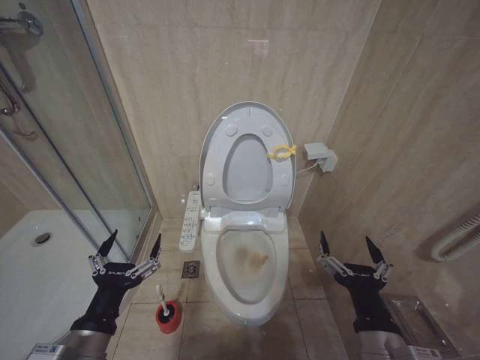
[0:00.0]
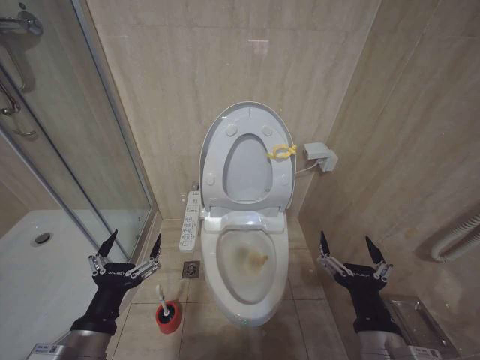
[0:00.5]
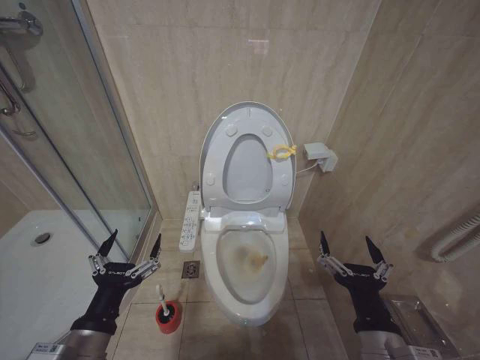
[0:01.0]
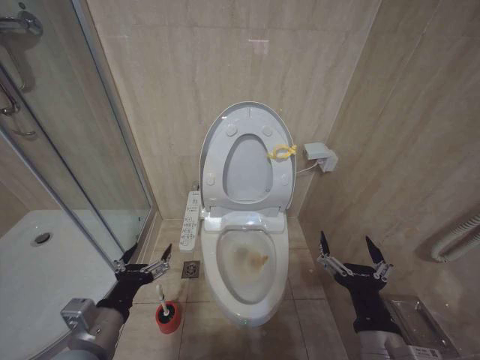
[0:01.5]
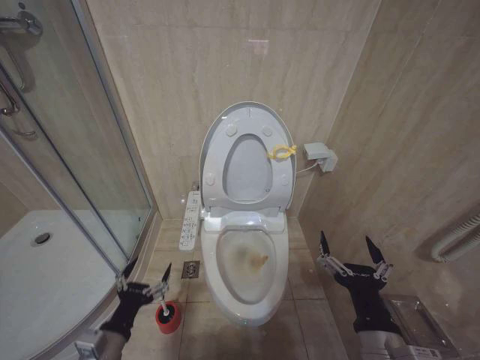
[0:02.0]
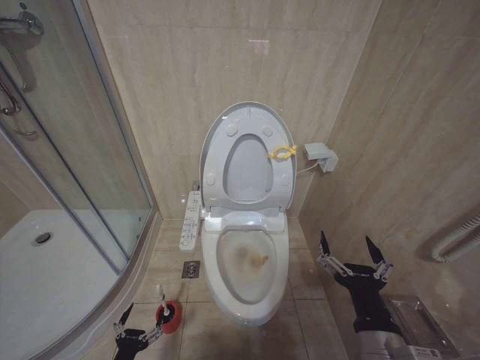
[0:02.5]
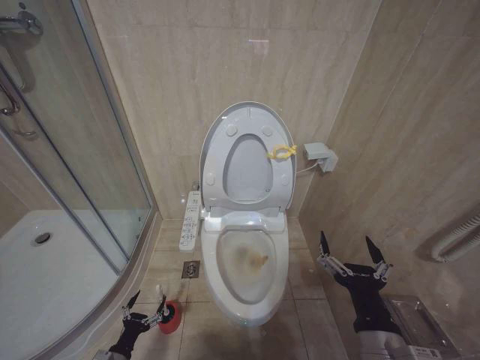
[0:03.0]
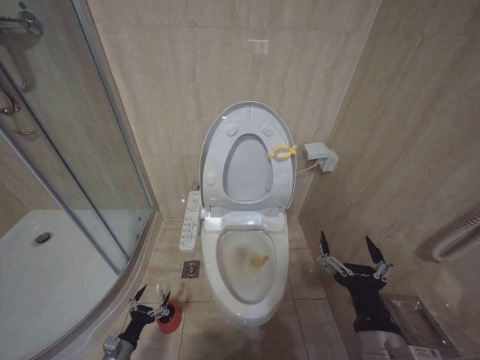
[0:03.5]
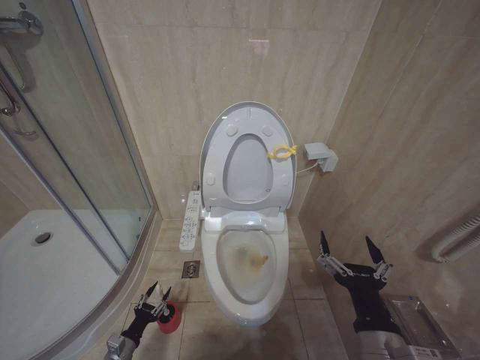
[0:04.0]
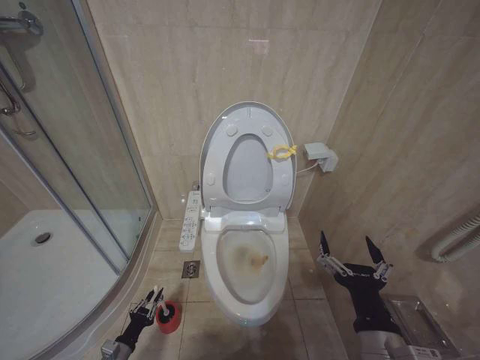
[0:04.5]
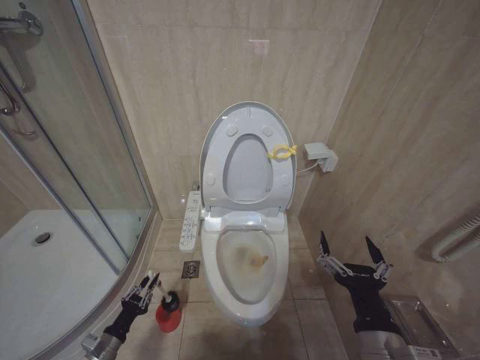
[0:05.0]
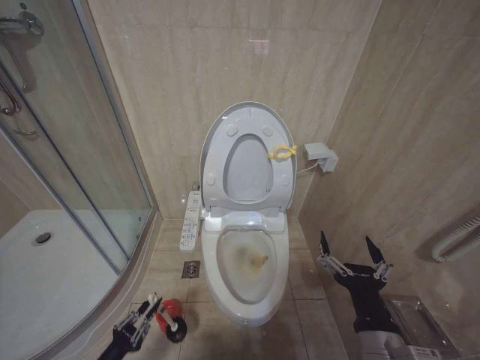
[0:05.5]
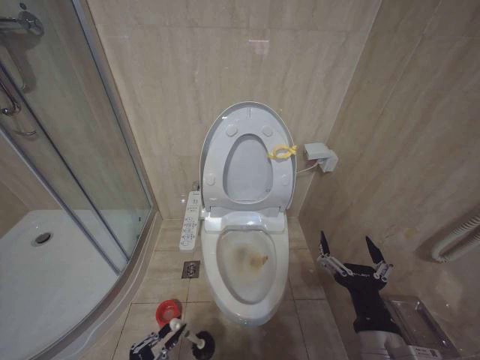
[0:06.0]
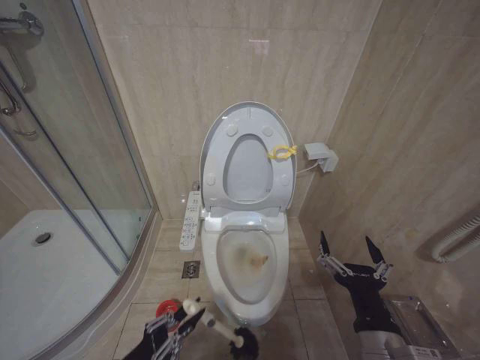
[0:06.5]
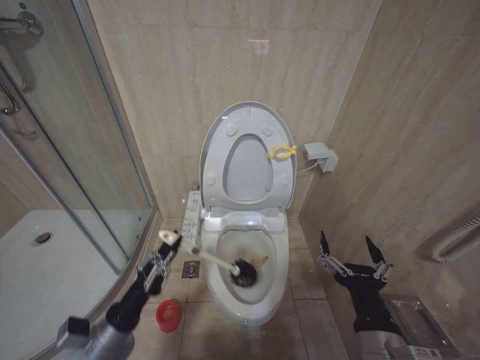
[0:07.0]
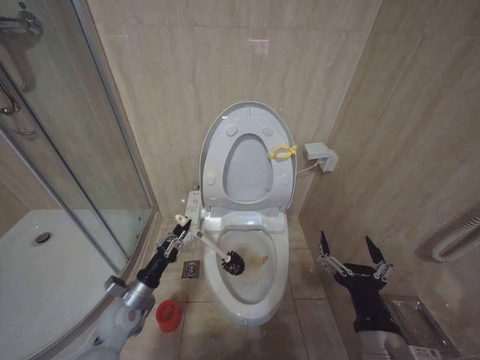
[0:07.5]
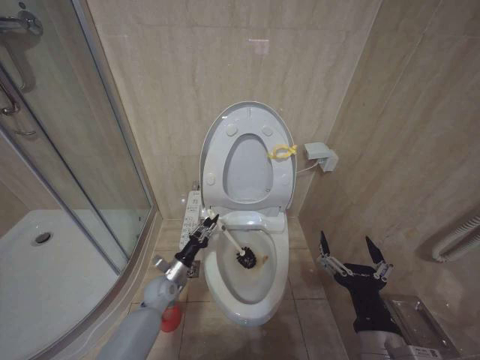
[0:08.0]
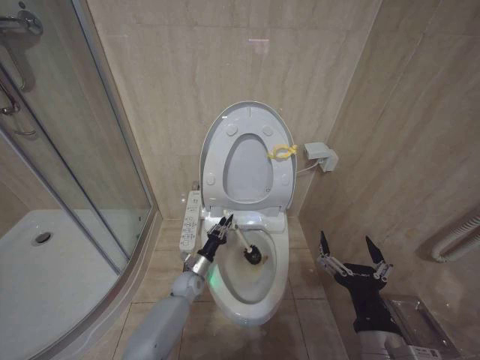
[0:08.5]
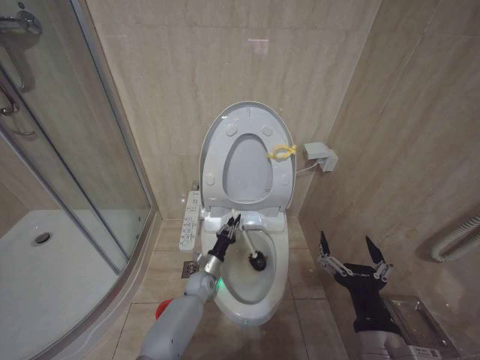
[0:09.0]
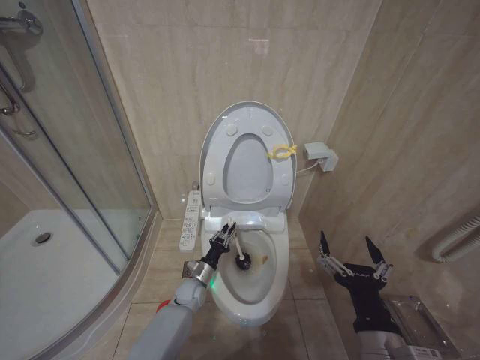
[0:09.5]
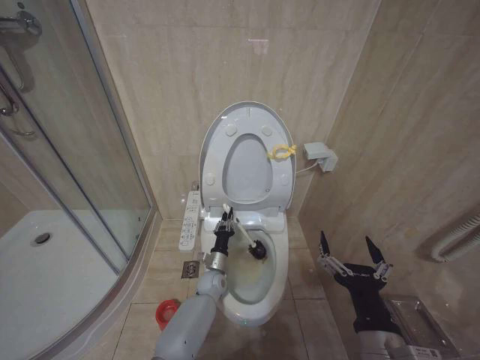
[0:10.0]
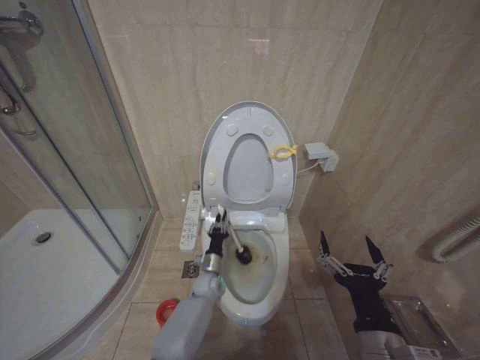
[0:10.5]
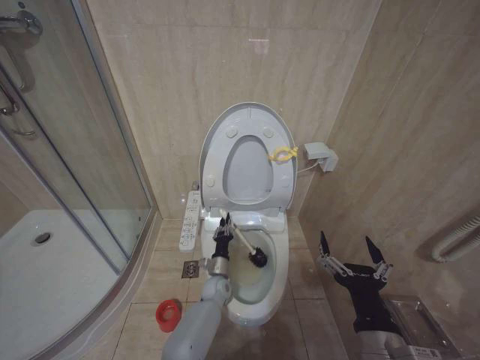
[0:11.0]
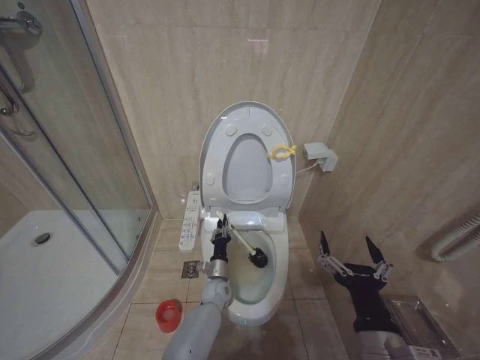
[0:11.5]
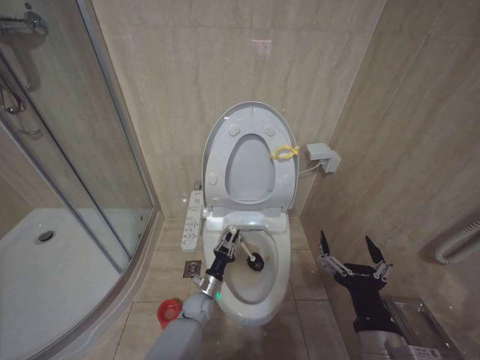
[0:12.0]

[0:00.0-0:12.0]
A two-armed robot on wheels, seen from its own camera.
Task of the whole recording: Open the toilet lid, clean the toilet bowl with a toilet brush, close the toilet lid, and flush.
0:00.0 to 0:02.0: The left gripper moves downward, some 5 cm.
0:02.0 to 0:04.0: The left gripper moves downward, some 30 cm.
0:04.0 to 0:06.0: The left gripper travels upward and backward by some 20 cm, and closes.
0:06.0 to 0:08.0: The left gripper moves forward and to the right, approximately 30 cm.
0:08.0 to 0:10.0: The left gripper goes left and right, some 15 cm each way, reversing 2 times.
0:10.0 to 0:12.0: The left gripper heads downward, covering approximately 5 cm.

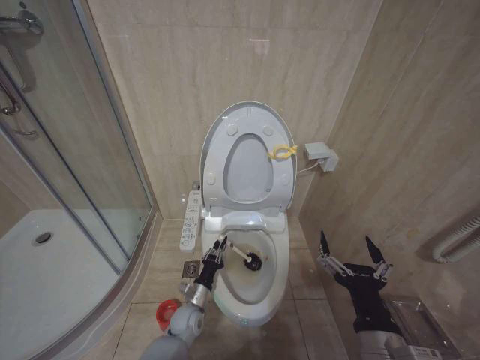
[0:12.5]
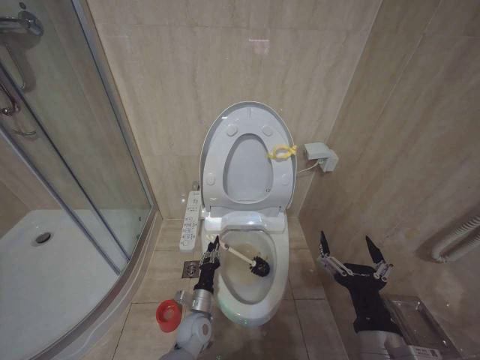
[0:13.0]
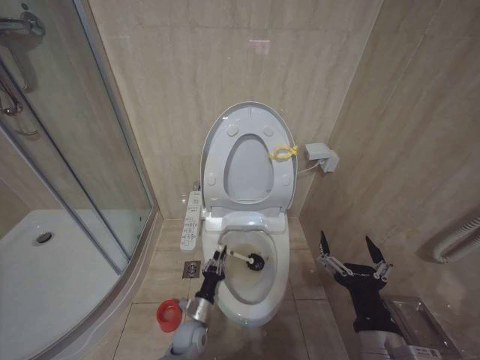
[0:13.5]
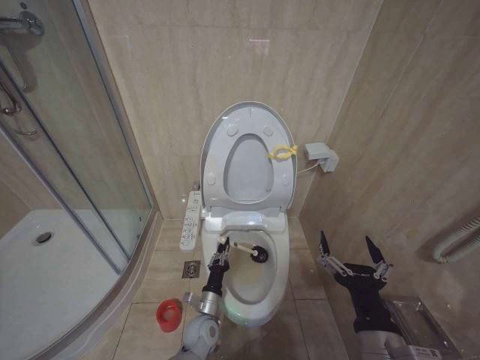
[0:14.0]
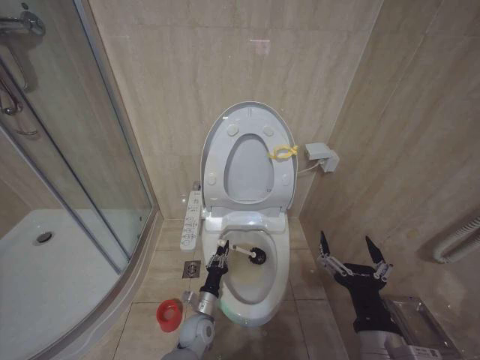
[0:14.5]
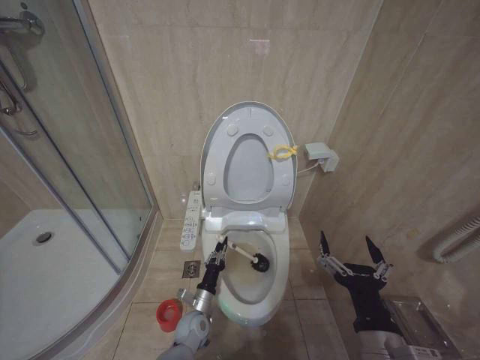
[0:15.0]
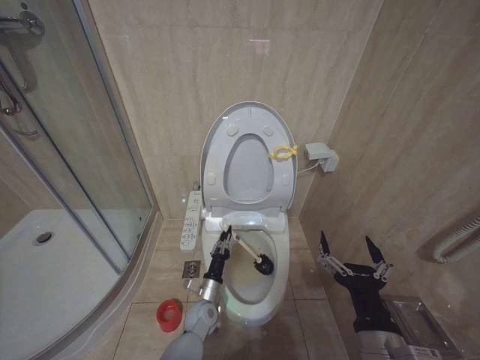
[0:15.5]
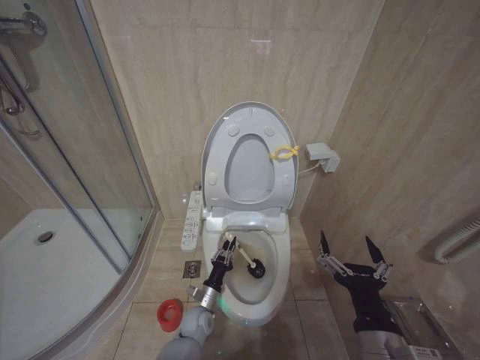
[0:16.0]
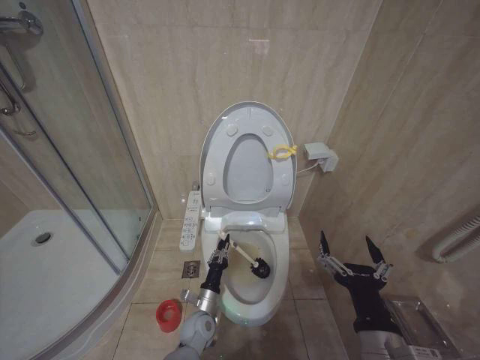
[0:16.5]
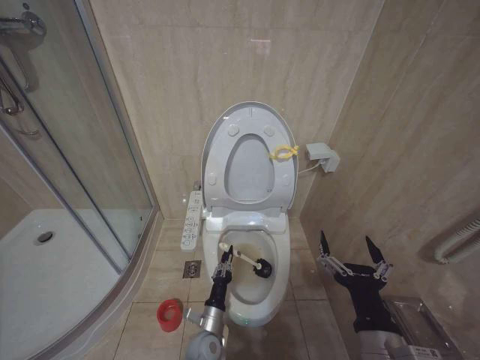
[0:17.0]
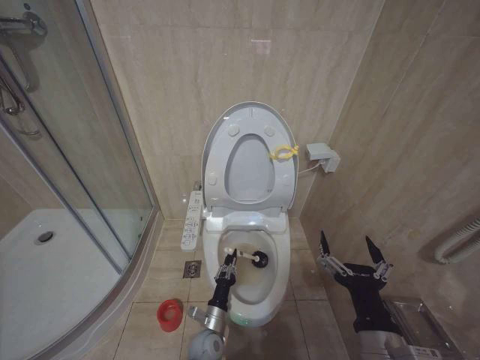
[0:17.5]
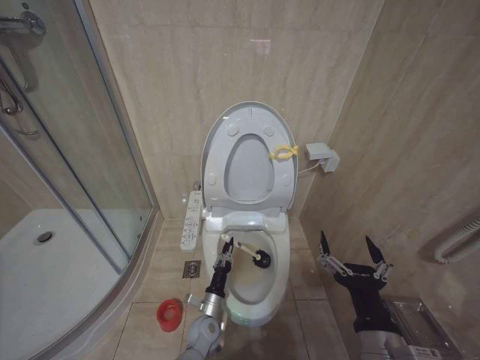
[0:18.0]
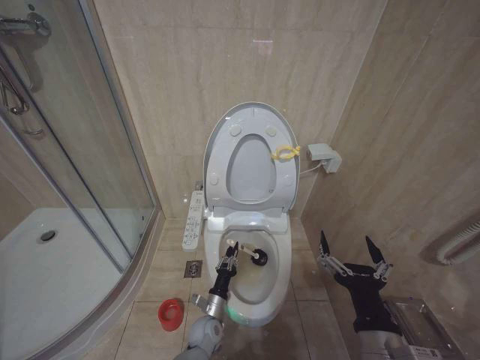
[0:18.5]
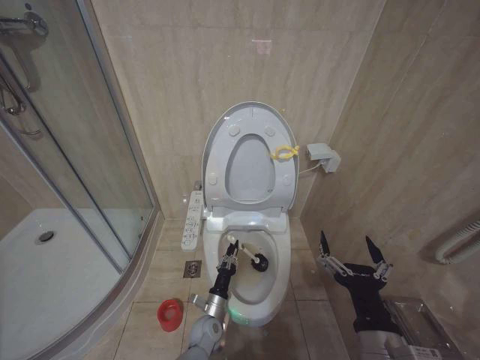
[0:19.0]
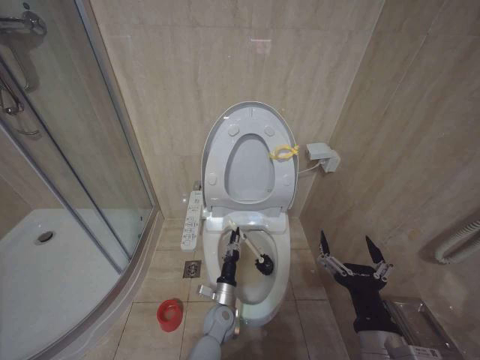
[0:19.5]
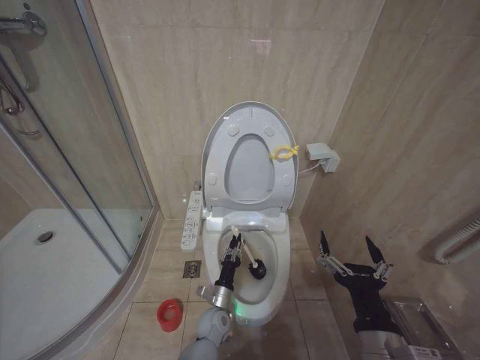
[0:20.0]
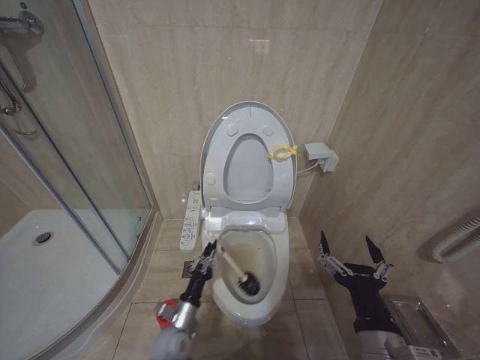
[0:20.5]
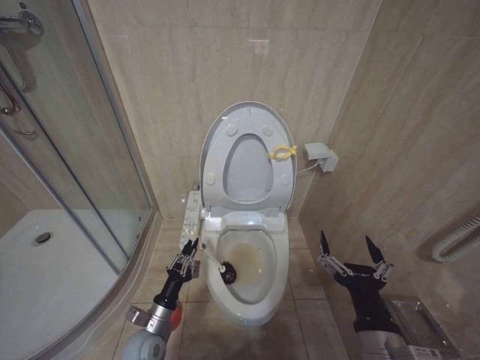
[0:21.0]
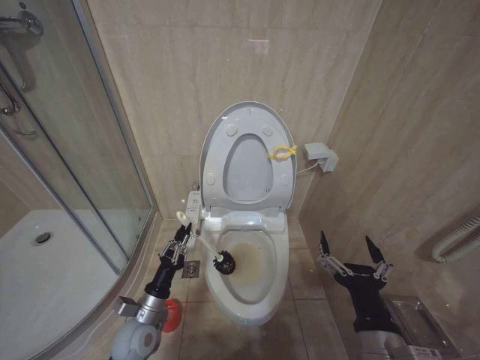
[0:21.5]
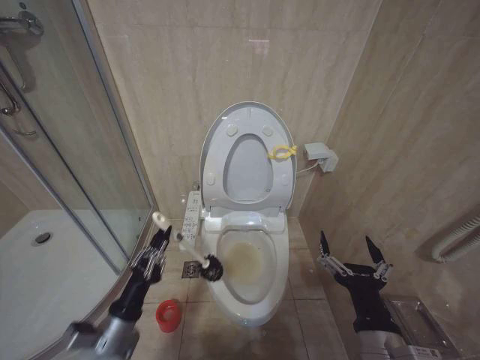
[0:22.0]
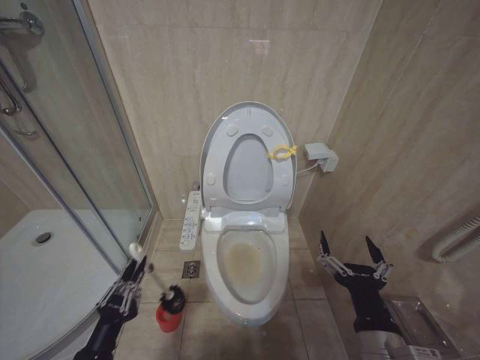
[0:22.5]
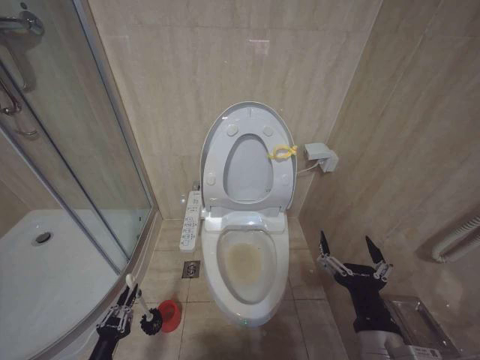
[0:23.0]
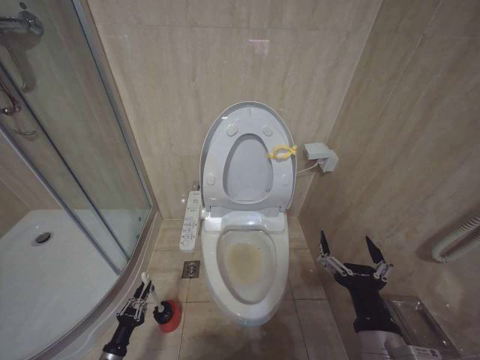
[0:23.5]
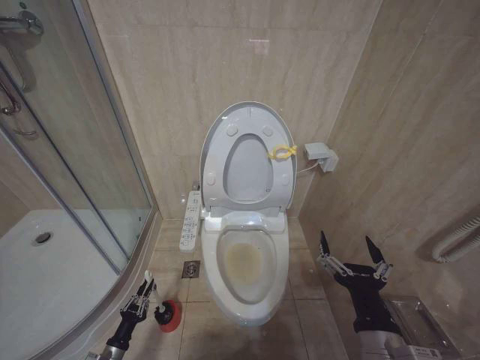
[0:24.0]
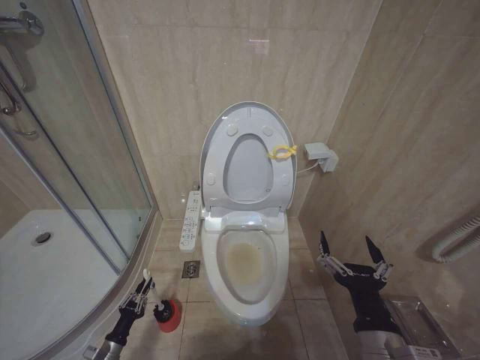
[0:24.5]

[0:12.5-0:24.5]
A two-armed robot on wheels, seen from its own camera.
Task of the whole recording: Open the toilet lid, clean the toilet bowl with a toilet brush, close the toilet lid, and flush.
0:12.5 to 0:14.5: The left gripper moves approximately 5 cm.
0:14.5 to 0:16.5: The grippers stay close to where they were, moving slightly.
0:18.5 to 0:20.5: The left gripper moves upward, approximately 5 cm.
0:20.5 to 0:22.5: The left gripper travels to the left, backward and upward by approximately 25 cm.
0:22.5 to 0:24.5: The left gripper heads downward and to the left, covering about 30 cm.

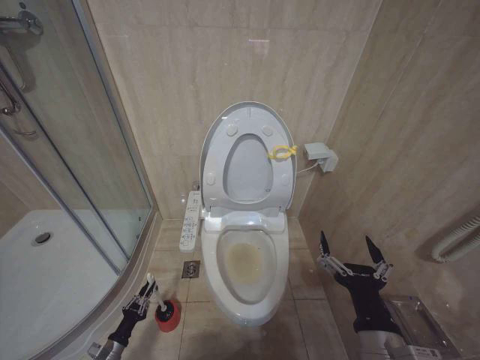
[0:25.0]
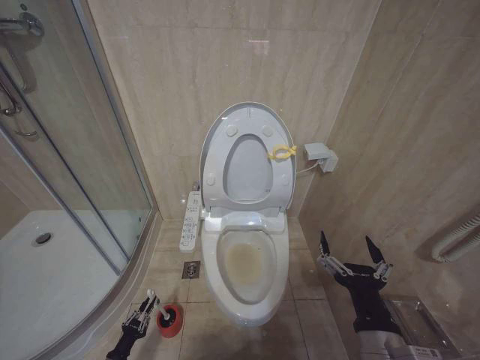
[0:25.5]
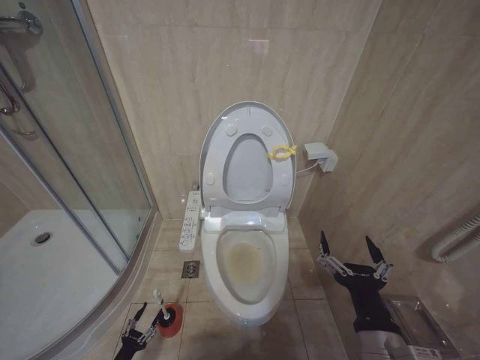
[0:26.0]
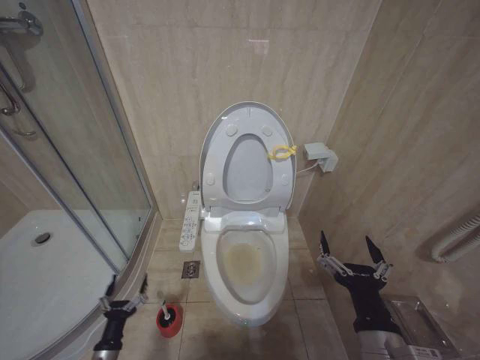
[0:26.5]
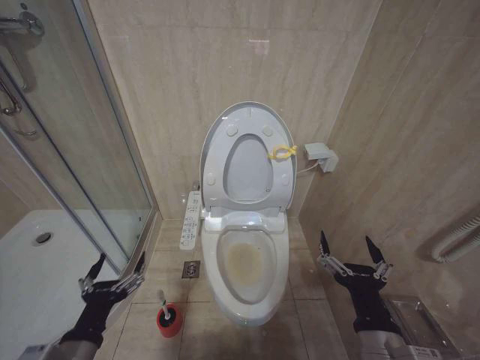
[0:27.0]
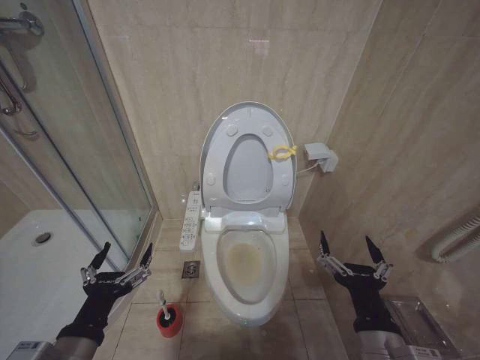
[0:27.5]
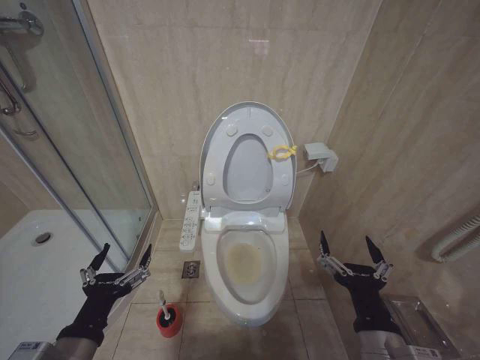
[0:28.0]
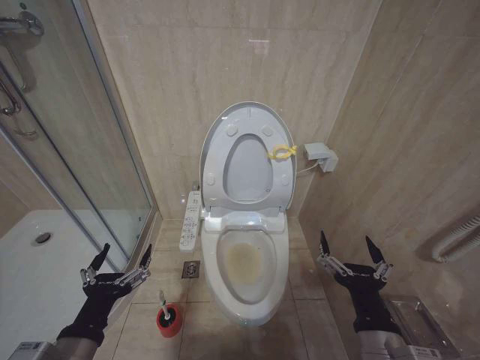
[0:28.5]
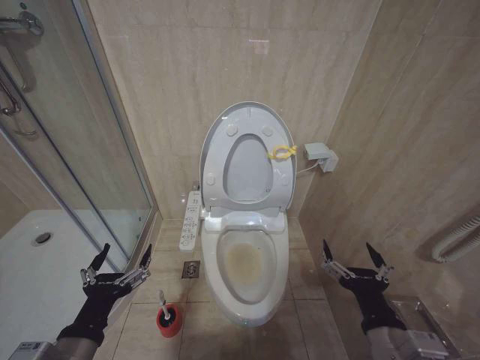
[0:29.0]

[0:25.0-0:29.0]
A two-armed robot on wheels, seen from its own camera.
Task of the whole recording: Open the toilet lid, clean the toilet bowl with a toilet brush, close the toilet lid, and flush.
0:25.0 to 0:27.0: The left gripper is displaced upward by about 35 cm, and opens up.
0:27.0 to 0:29.0: The left gripper travels upward by about 5 cm.
